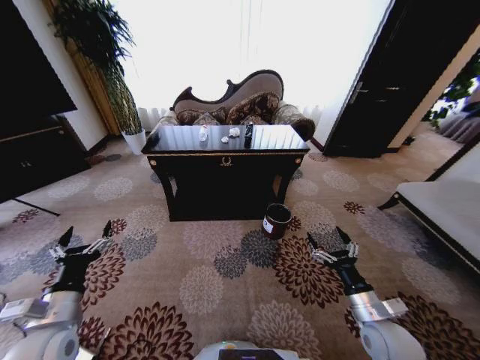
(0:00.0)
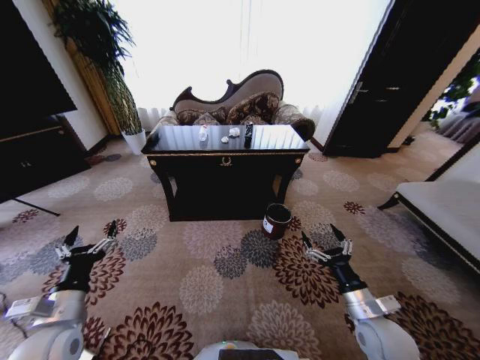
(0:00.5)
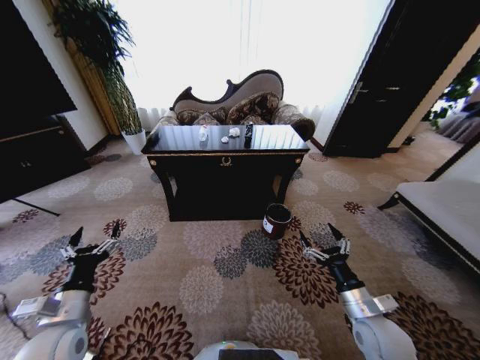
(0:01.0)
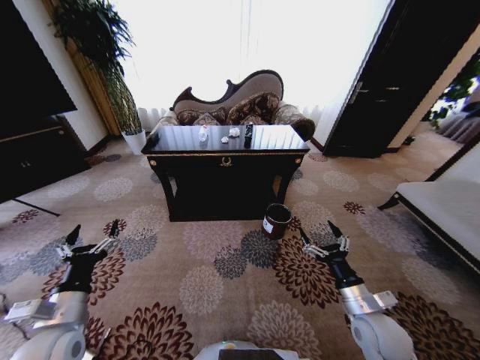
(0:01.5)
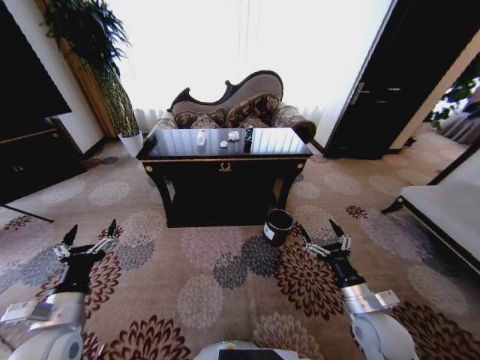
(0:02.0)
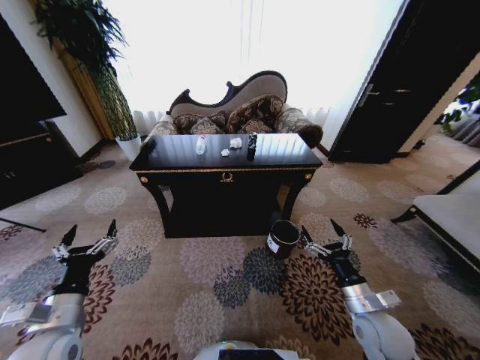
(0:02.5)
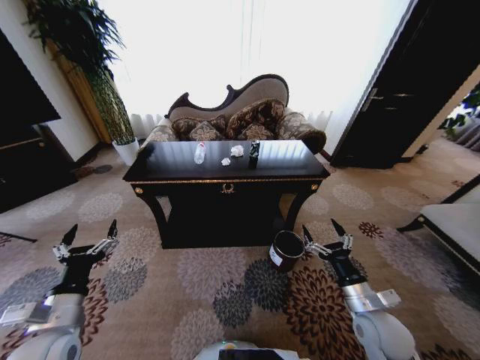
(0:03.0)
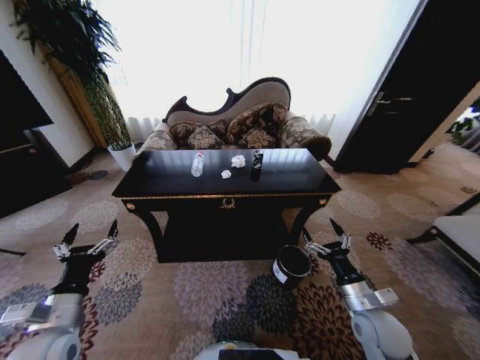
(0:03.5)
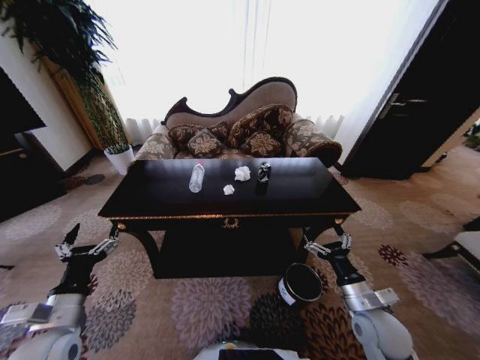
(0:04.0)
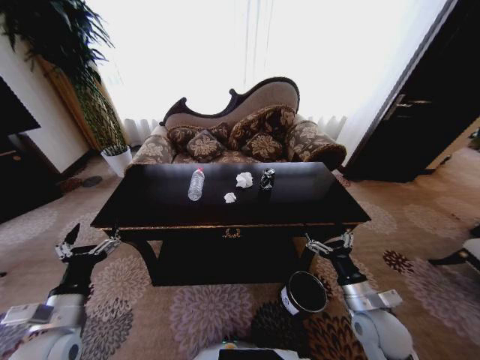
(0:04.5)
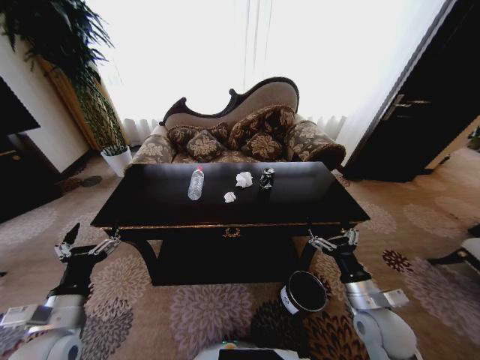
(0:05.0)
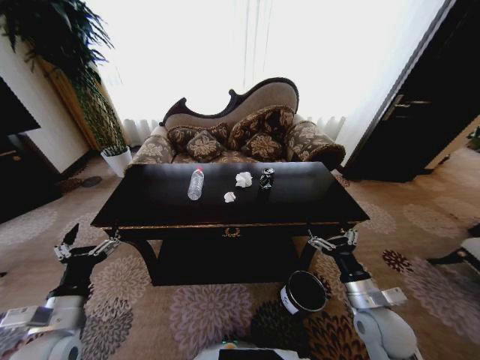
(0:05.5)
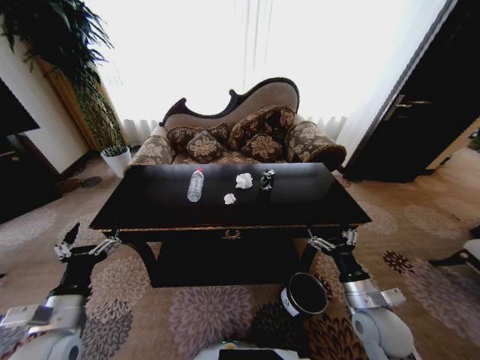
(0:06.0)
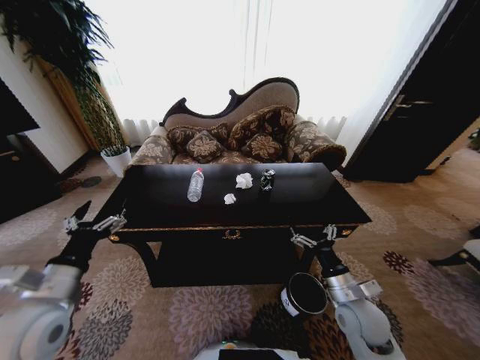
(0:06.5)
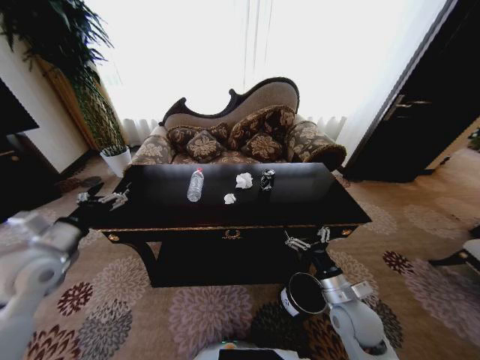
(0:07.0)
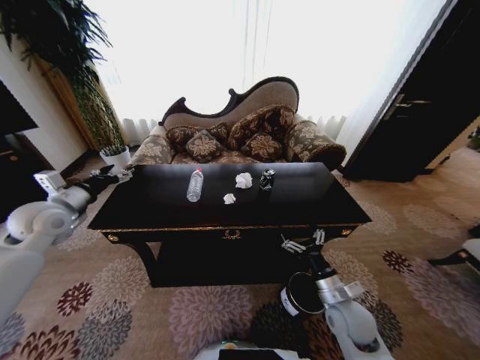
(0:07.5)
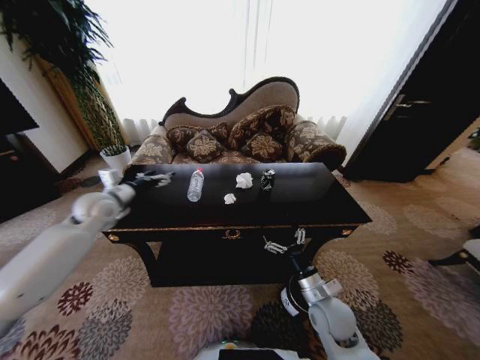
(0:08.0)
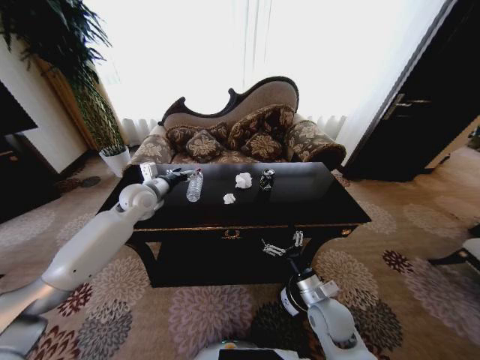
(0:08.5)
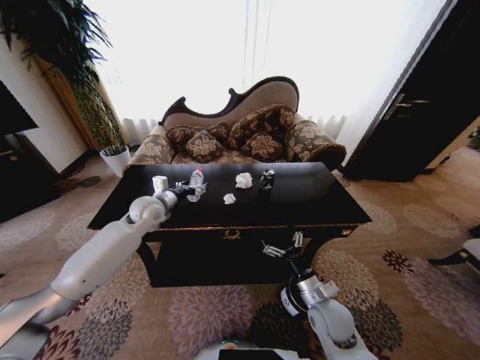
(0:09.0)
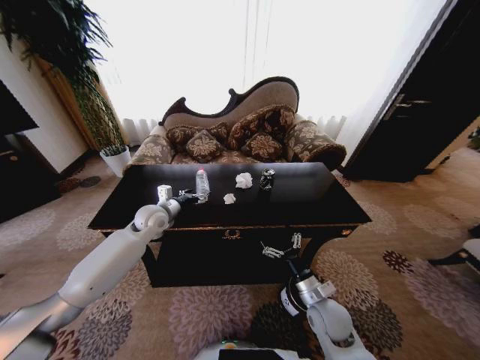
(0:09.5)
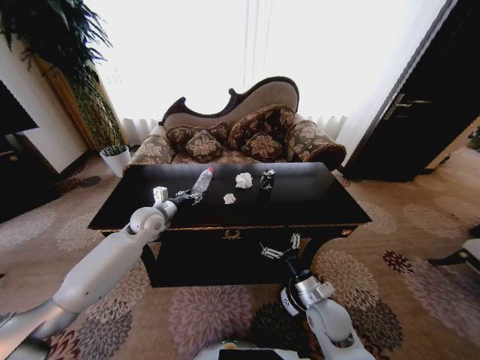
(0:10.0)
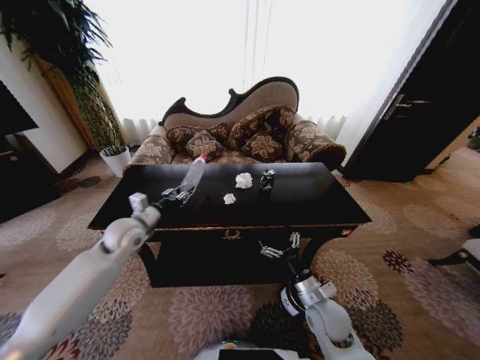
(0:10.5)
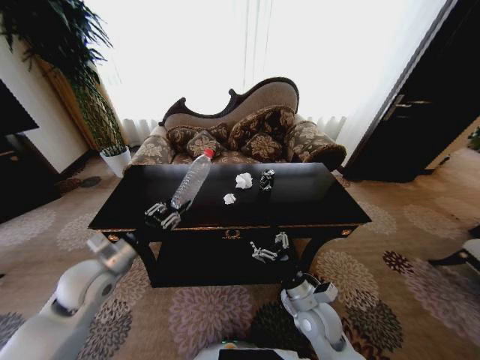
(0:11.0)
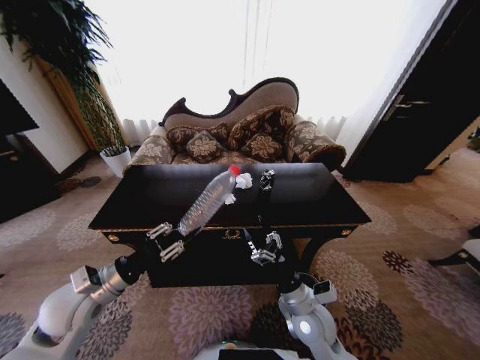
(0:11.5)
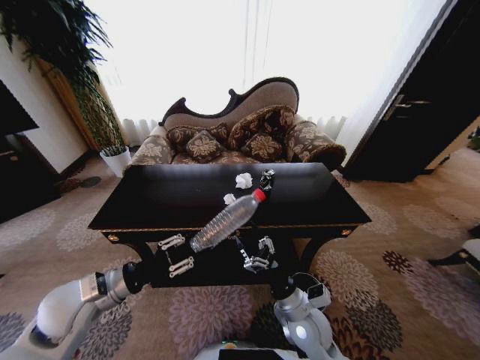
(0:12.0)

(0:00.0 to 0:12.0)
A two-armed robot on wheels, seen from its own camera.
Task of the whole recording: Move to the front of the table and place the trash on the table into the trash bin.
0:04.0 - 0:06.0: The grippers stay close to where they were, moving slightly.
0:06.0 - 0:08.0: The left gripper goes approximately 30 cm forward. The right gripper heads to the left, covering roughly 10 cm.
0:08.0 - 0:10.0: The left gripper moves to the right and downward, some 15 cm, and closes.
0:10.0 - 0:12.0: The left gripper shifts approximately 25 cm backward, and closes up, while the right gripper shifts some 5 cm to the left.

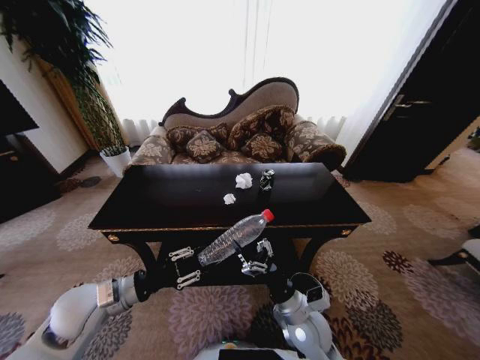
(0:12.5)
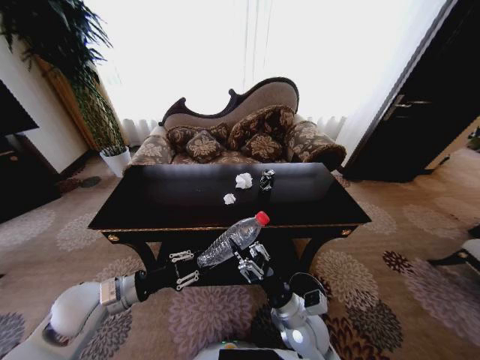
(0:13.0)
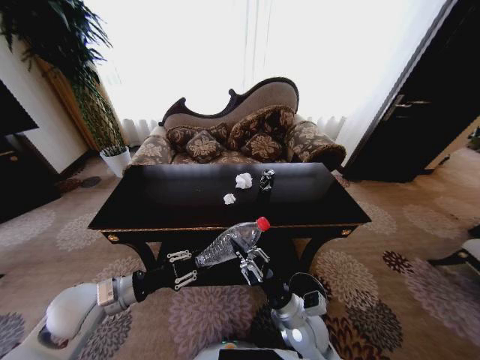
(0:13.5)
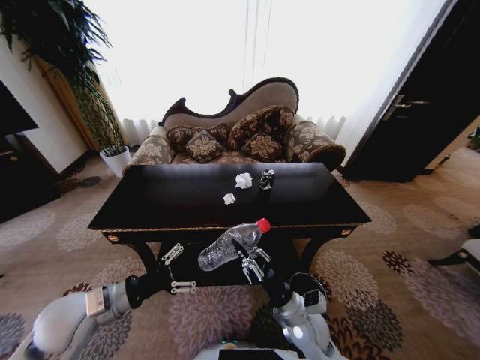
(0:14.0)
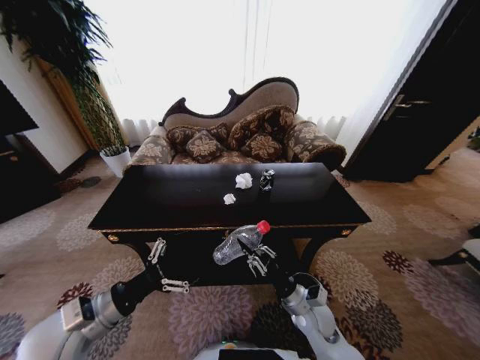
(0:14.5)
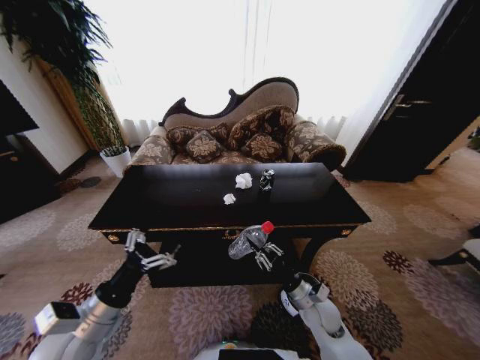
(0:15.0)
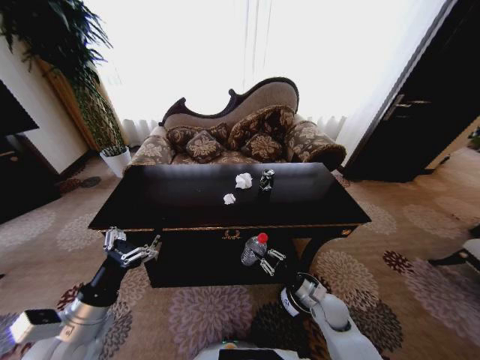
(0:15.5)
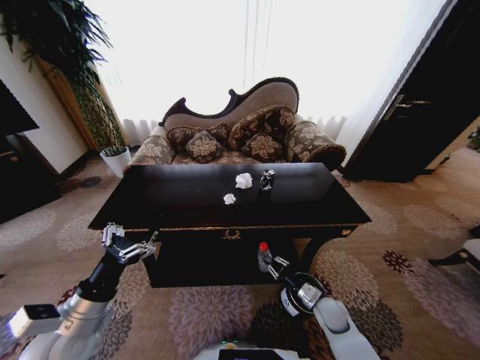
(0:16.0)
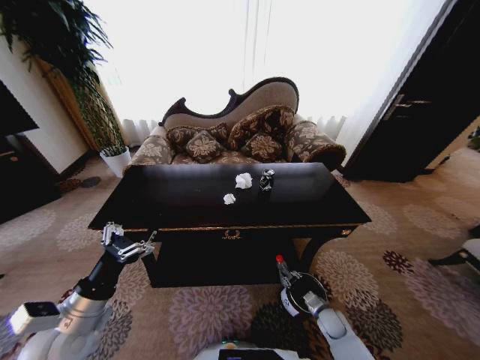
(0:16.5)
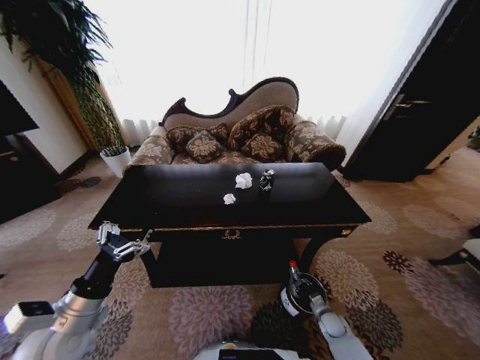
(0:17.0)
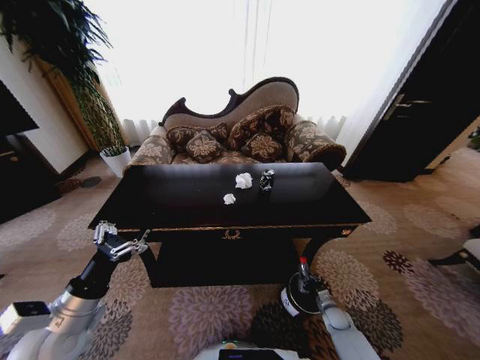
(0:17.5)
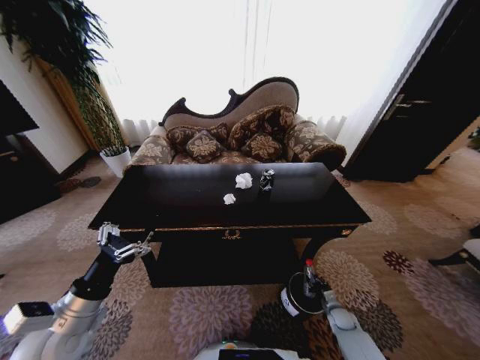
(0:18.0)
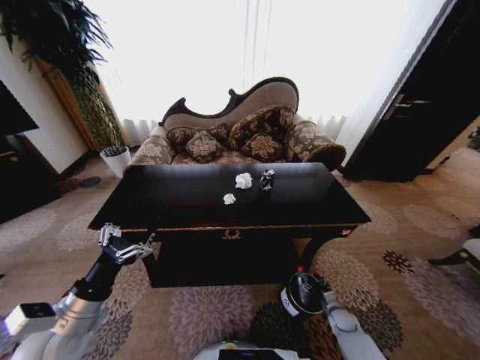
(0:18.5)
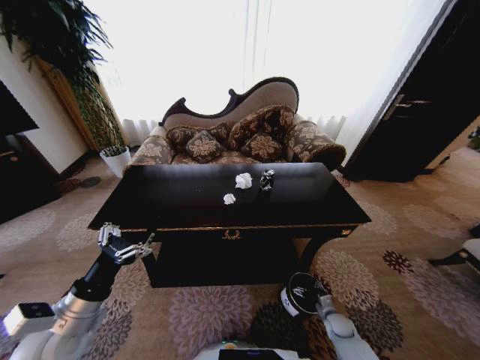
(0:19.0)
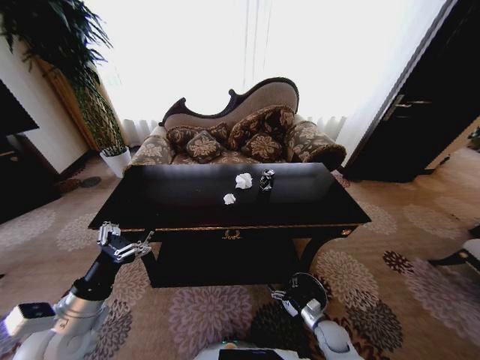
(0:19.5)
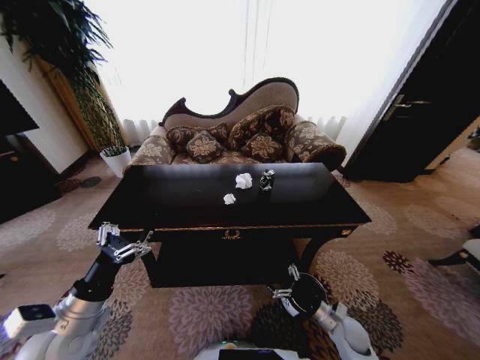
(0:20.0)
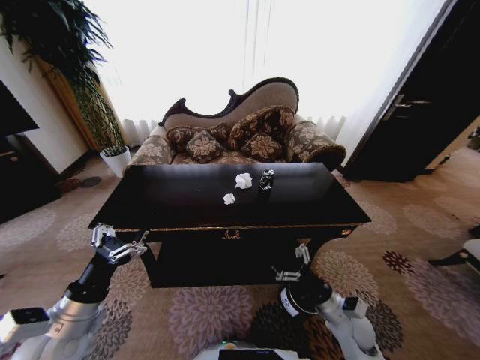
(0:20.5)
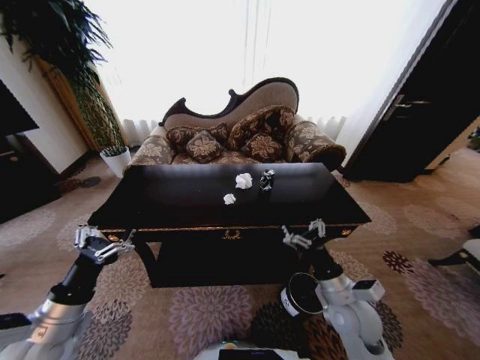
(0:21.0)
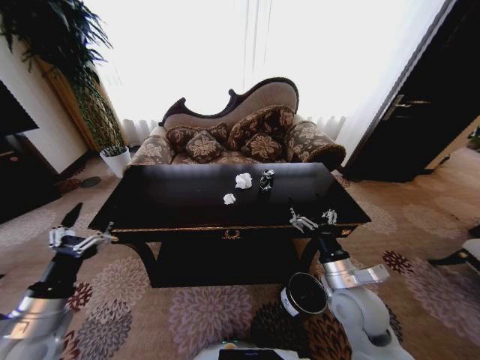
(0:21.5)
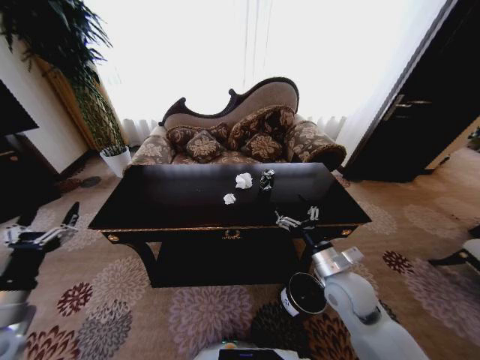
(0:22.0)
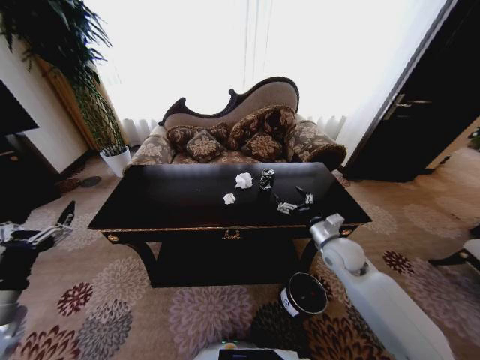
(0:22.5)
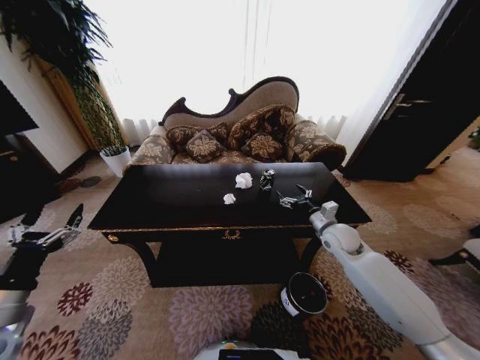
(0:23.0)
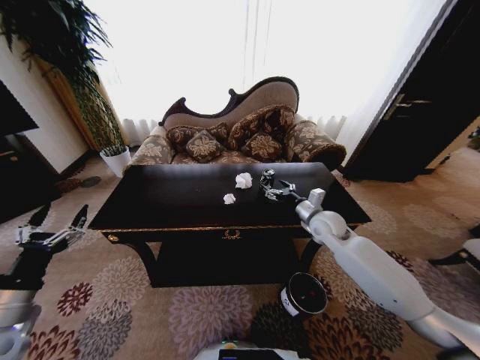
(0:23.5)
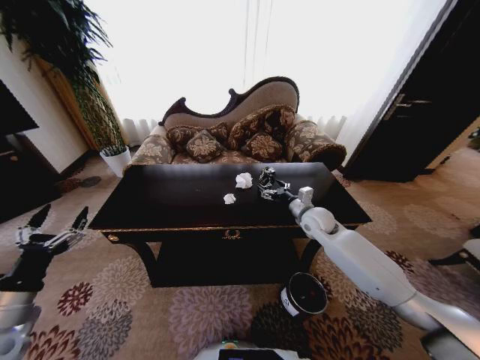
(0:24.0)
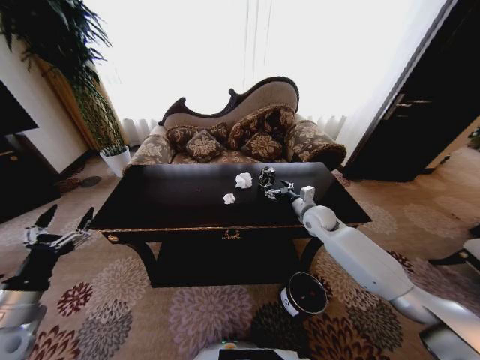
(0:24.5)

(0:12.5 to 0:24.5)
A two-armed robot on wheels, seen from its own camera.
Task of the whole recording: Move to the front of the table and place the trash on the table into the trash bin.
0:12.5 - 0:14.5: The left gripper moves backward, some 5 cm, and opens up. Meanwhile the right gripper shifts by about 5 cm, and closes.
0:14.5 - 0:16.5: The right gripper goes roughly 25 cm downward and to the right.
0:16.5 - 0:18.5: The right gripper travels to the right by about 5 cm, and opens its fingers.
0:18.5 - 0:20.5: The right gripper shifts about 25 cm upward and to the left.
0:20.5 - 0:22.5: The right gripper goes about 20 cm forward and upward, while the left gripper goes about 10 cm to the left.
0:22.5 - 0:24.5: The right gripper is displaced forward by about 15 cm.

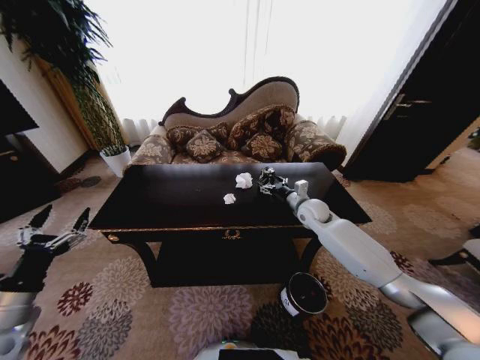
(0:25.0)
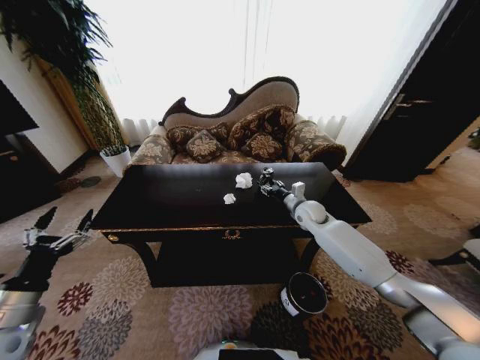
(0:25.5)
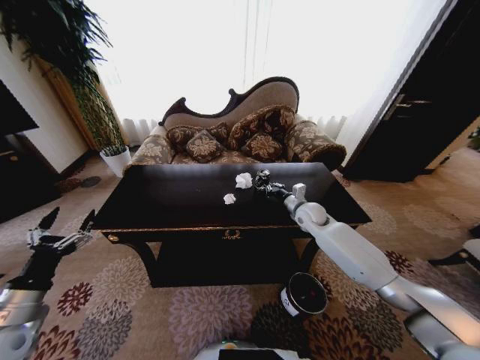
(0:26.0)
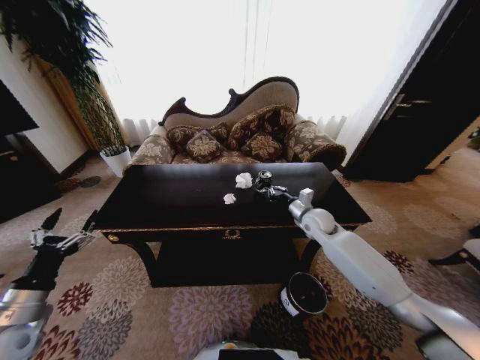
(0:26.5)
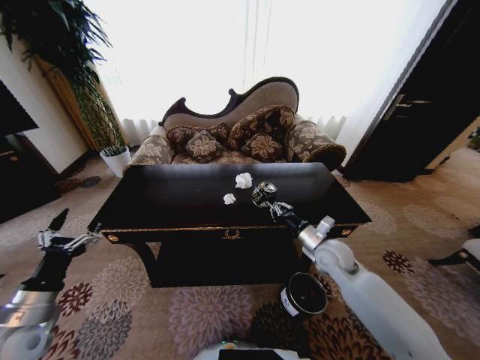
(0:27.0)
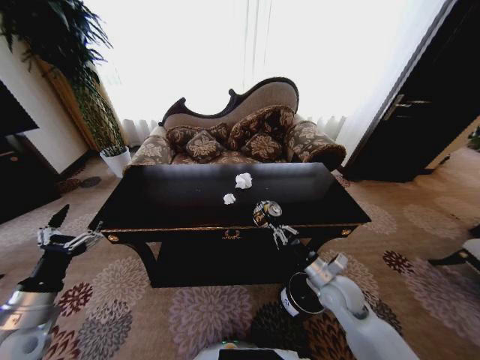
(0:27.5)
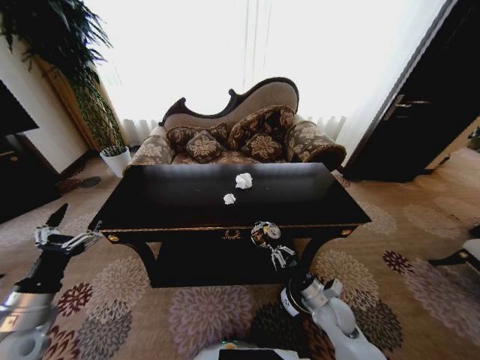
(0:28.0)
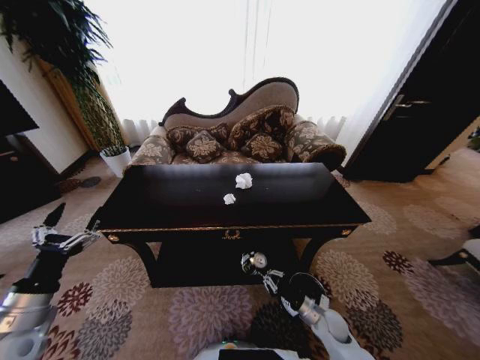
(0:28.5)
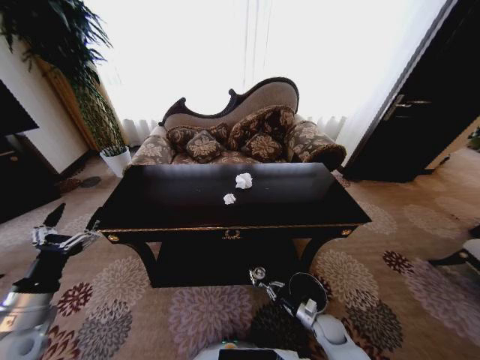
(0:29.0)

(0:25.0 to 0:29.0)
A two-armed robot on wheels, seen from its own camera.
Task of the whole recording: Move to the front of the table and place the trash on the table into the trash bin.
0:25.0 - 0:27.0: The right gripper travels backward by some 15 cm, and closes up.
0:27.0 - 0:29.0: The right gripper shifts approximately 30 cm downward and backward.
